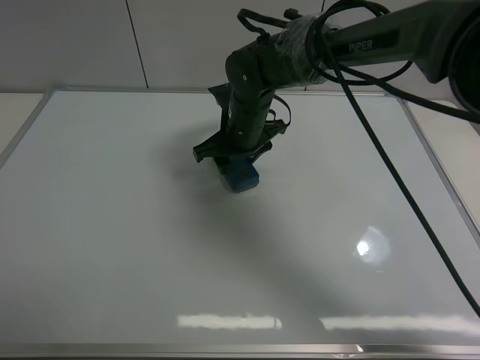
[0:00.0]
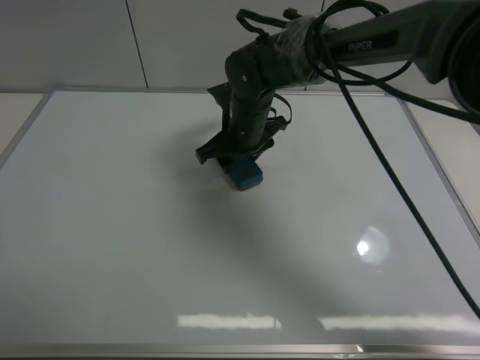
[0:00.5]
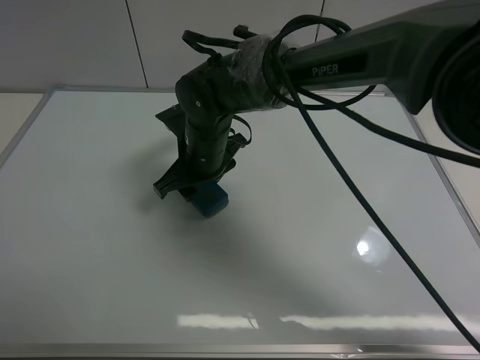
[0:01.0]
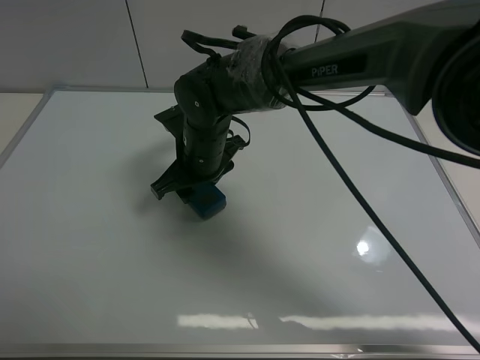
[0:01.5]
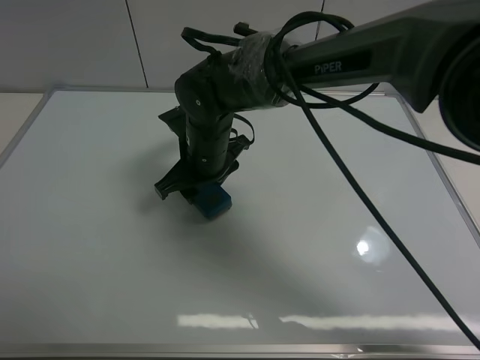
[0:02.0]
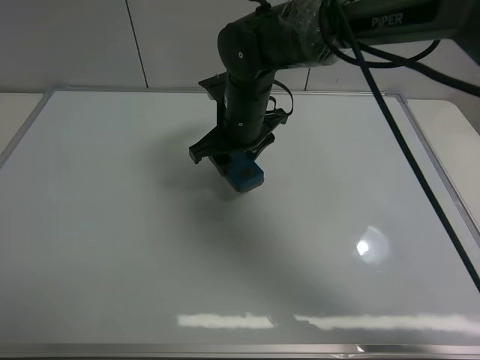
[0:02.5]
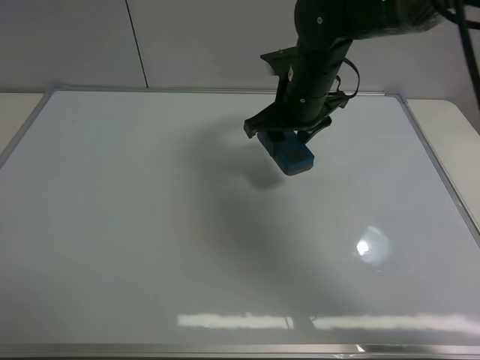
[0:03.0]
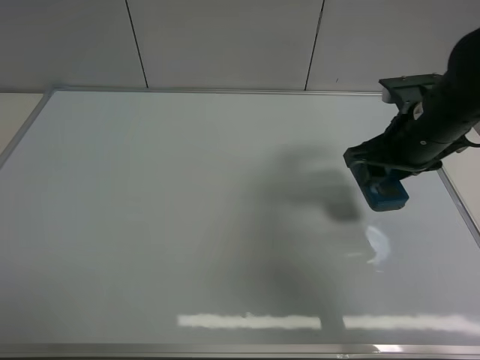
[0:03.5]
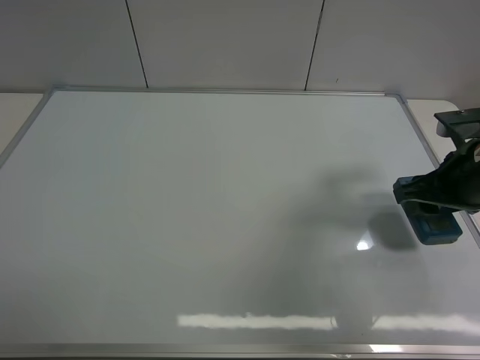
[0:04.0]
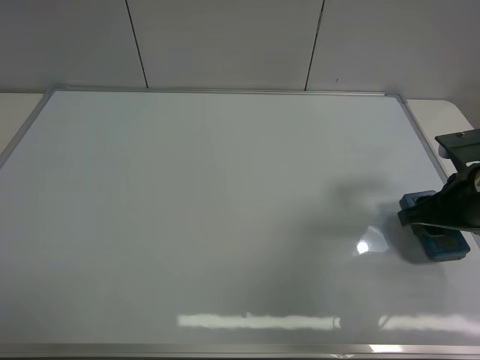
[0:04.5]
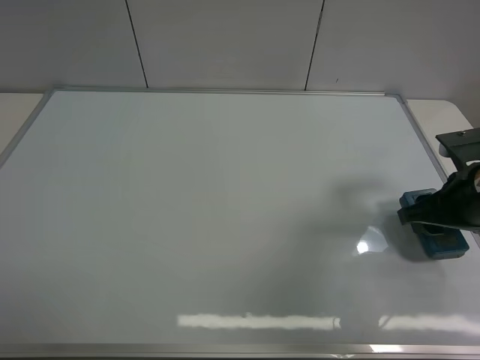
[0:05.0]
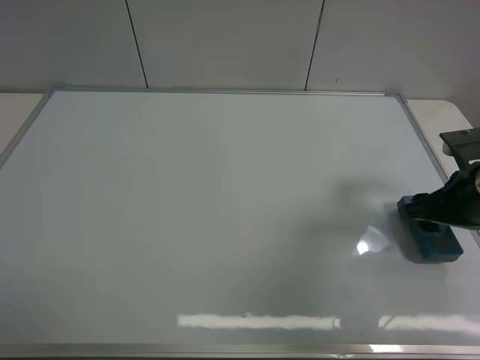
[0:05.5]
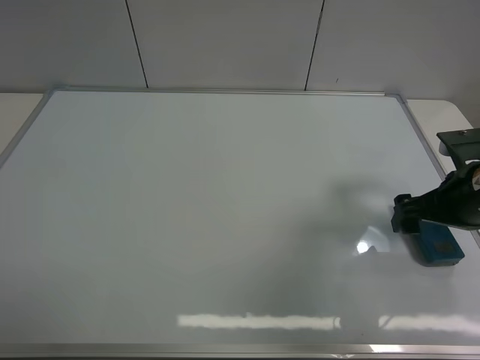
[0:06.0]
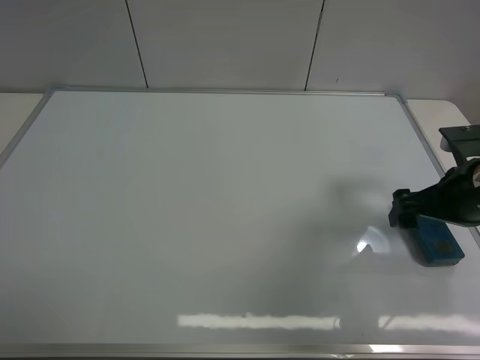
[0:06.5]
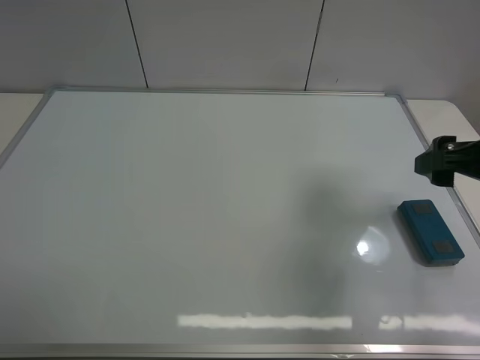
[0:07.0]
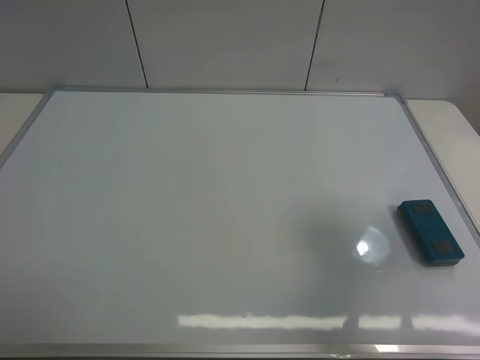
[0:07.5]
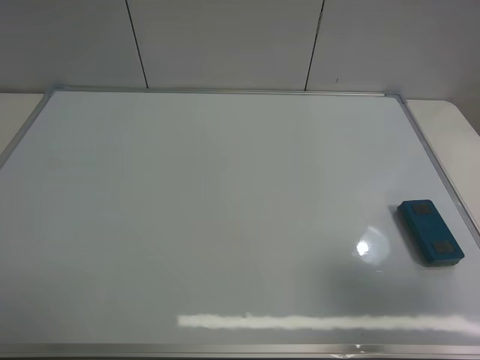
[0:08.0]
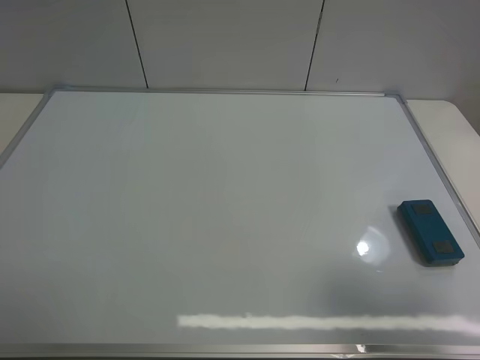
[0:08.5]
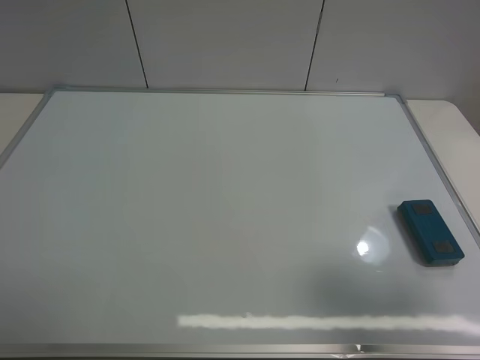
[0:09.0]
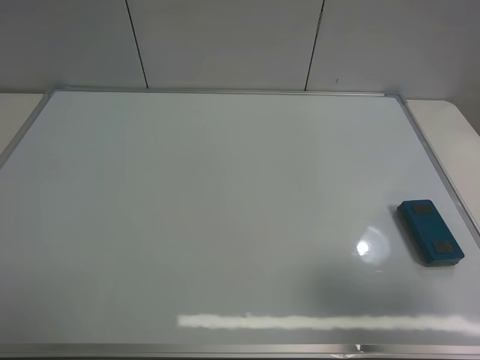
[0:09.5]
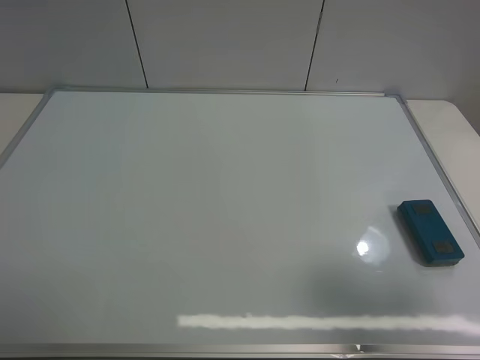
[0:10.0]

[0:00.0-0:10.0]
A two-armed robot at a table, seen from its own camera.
Task of the whole recording: use the right gripper to pick up the board eraser, wipe the notes on the whiteboard clean, and then put them back in place.
Step, 0:02.0 to 0:06.5: Place the board eraser on the right side of board with right gripper.
0:00.0 to 0:02.0: The right gripper shifts roughly 10 cm backward and to the left.
0:02.0 to 0:04.0: The right gripper travels to the right by some 30 cm.
0:04.0 to 0:06.0: The right gripper opens up.
0:06.0 to 0:08.0: The right gripper moves backward and upward, approximately 25 cm.
